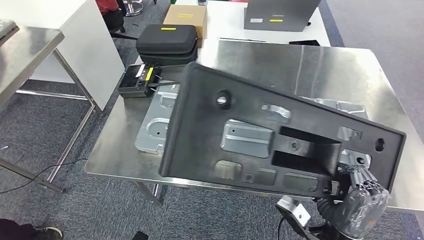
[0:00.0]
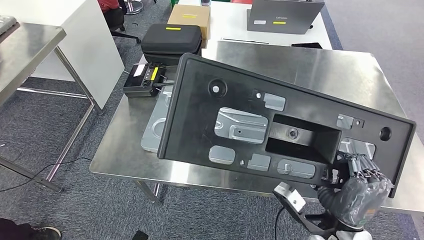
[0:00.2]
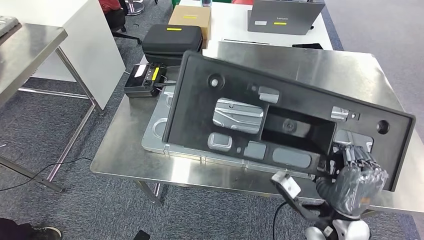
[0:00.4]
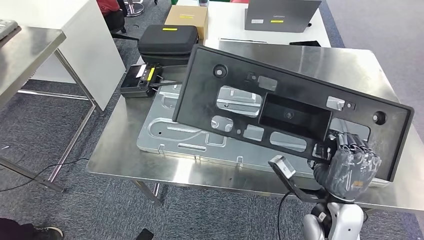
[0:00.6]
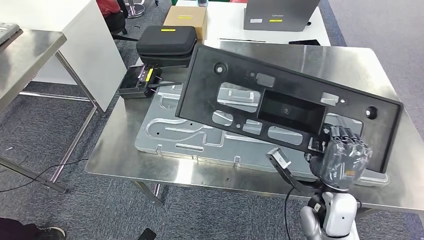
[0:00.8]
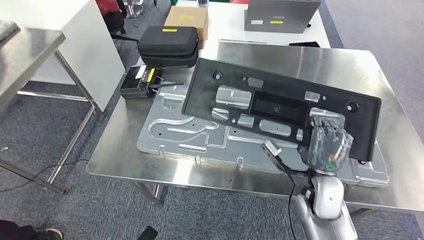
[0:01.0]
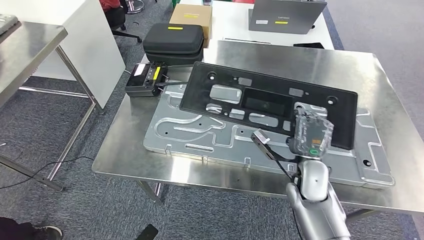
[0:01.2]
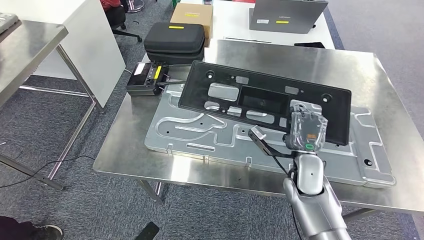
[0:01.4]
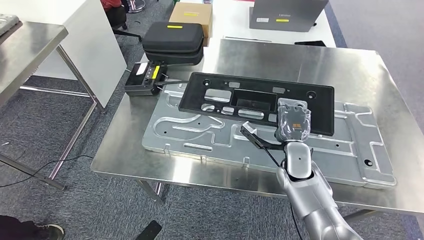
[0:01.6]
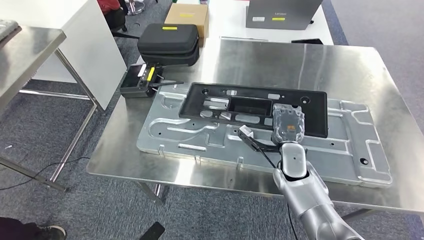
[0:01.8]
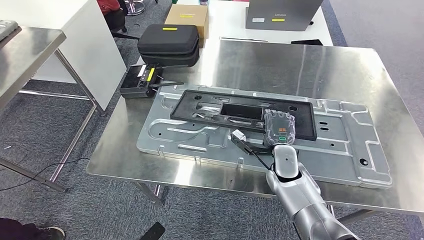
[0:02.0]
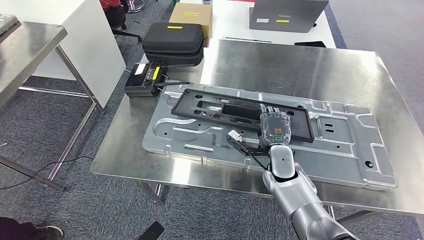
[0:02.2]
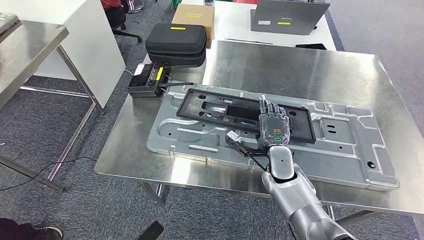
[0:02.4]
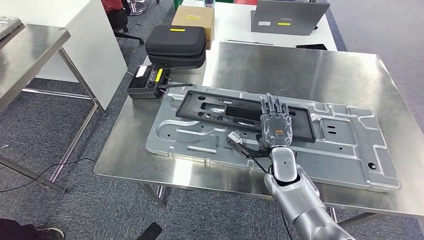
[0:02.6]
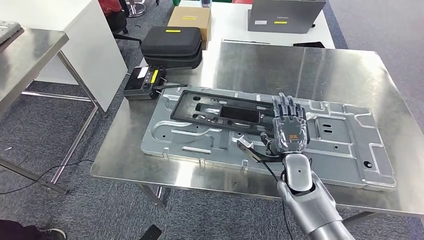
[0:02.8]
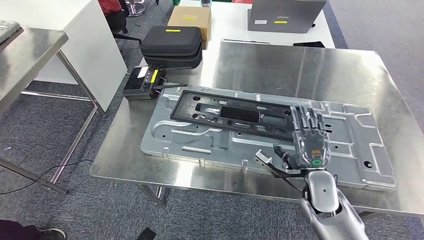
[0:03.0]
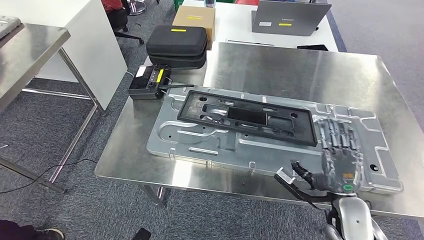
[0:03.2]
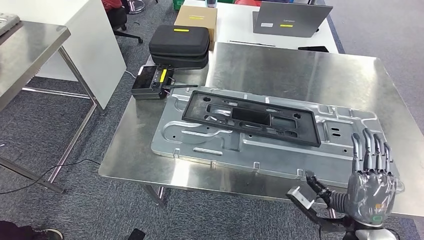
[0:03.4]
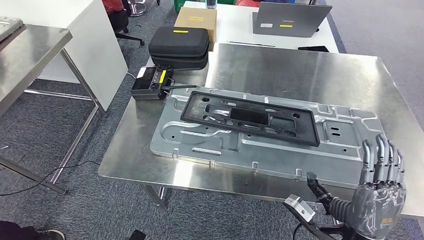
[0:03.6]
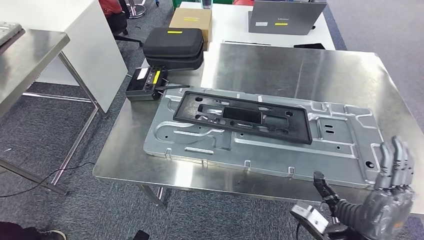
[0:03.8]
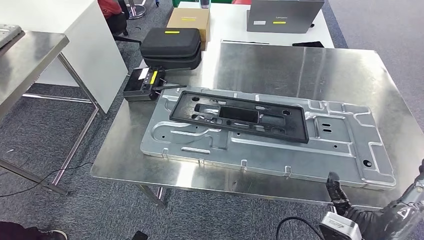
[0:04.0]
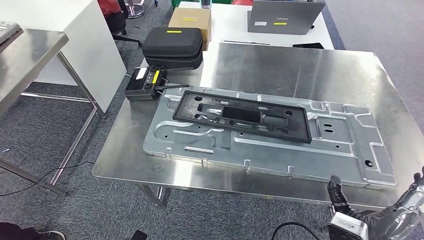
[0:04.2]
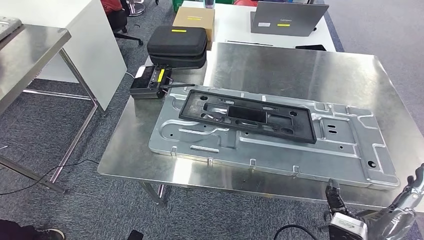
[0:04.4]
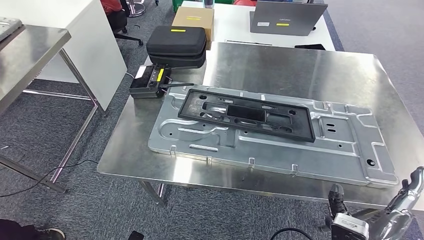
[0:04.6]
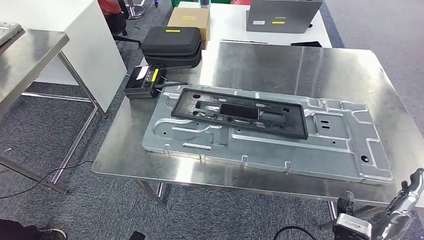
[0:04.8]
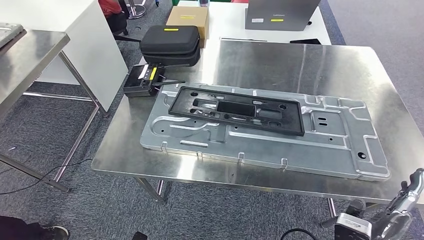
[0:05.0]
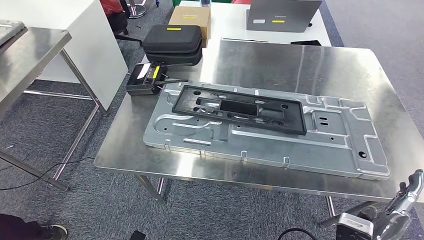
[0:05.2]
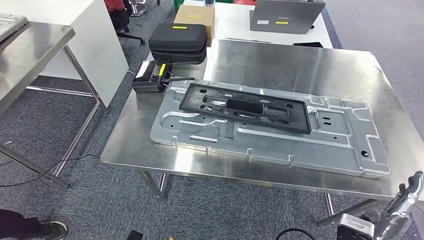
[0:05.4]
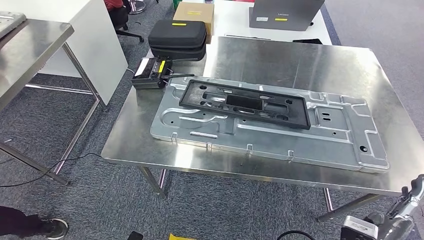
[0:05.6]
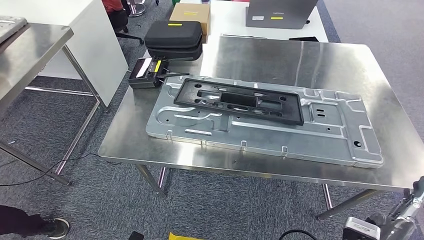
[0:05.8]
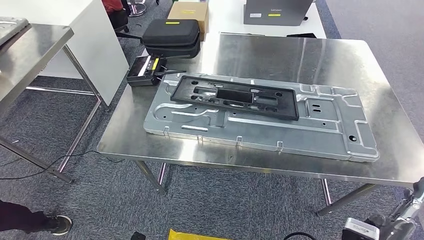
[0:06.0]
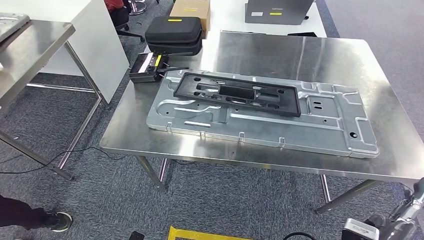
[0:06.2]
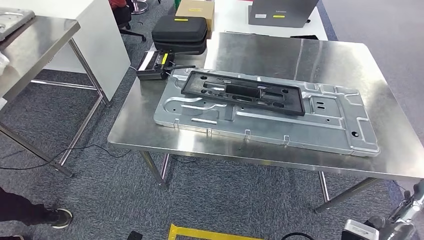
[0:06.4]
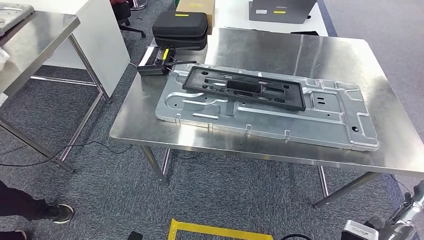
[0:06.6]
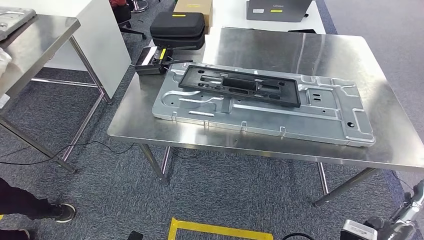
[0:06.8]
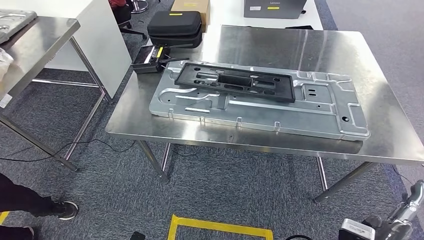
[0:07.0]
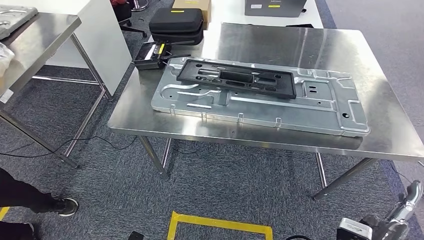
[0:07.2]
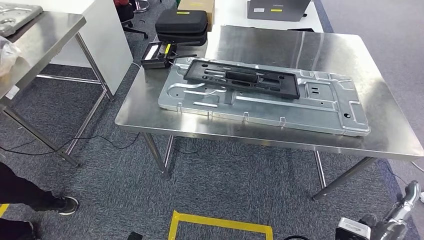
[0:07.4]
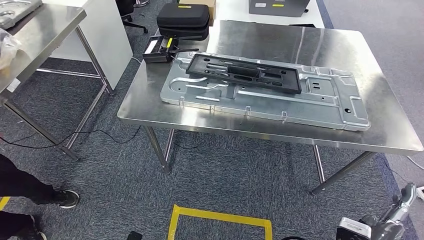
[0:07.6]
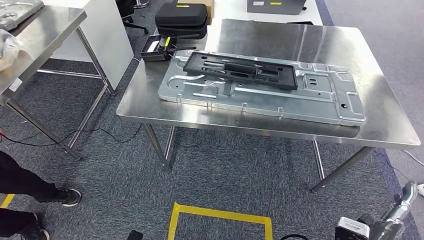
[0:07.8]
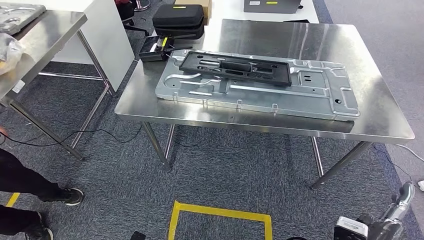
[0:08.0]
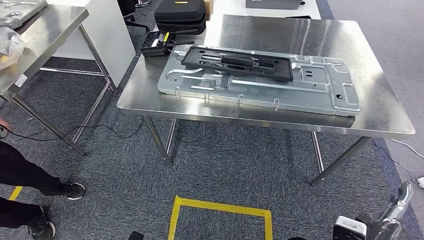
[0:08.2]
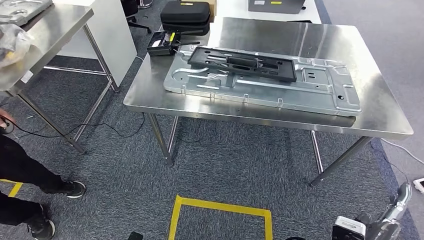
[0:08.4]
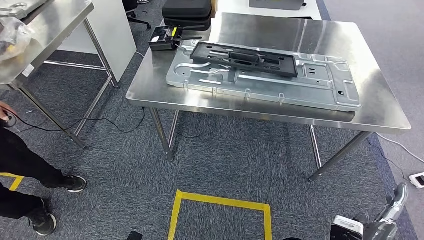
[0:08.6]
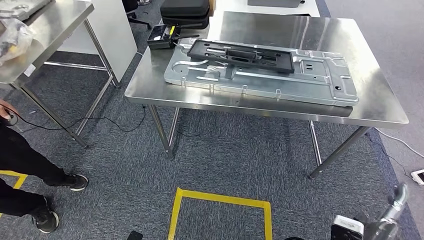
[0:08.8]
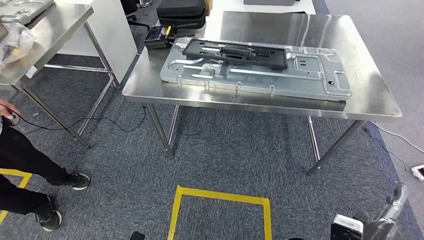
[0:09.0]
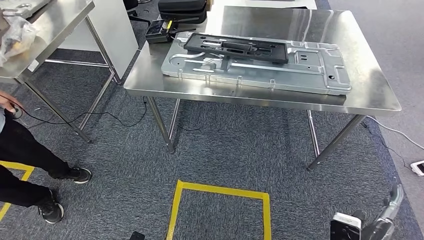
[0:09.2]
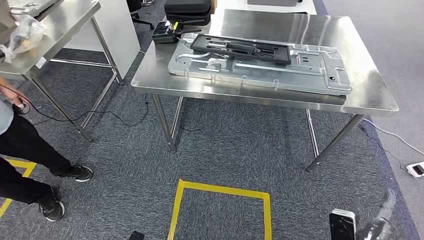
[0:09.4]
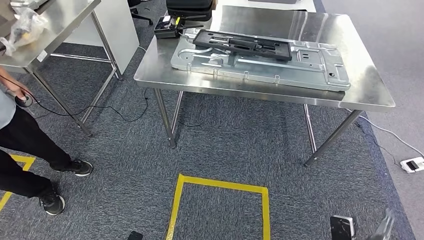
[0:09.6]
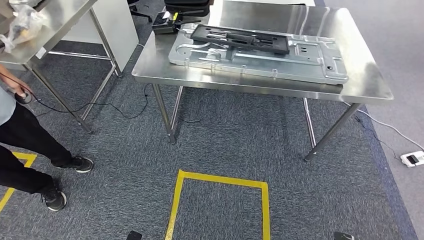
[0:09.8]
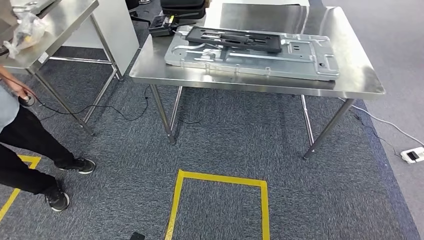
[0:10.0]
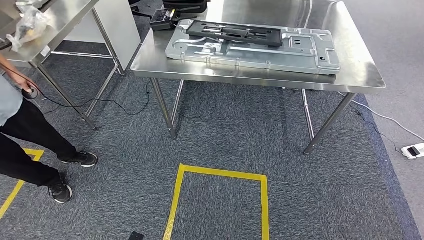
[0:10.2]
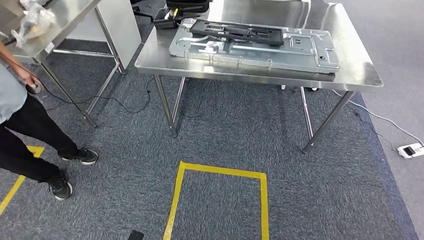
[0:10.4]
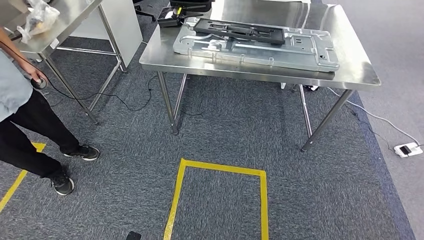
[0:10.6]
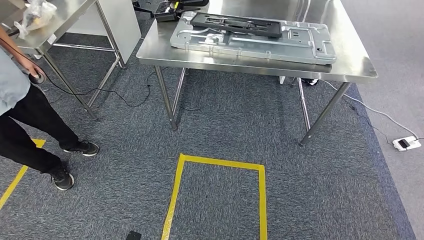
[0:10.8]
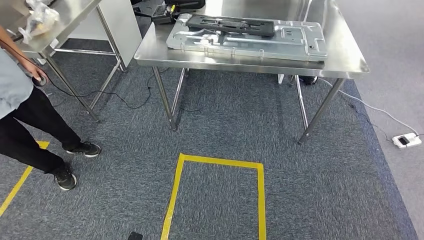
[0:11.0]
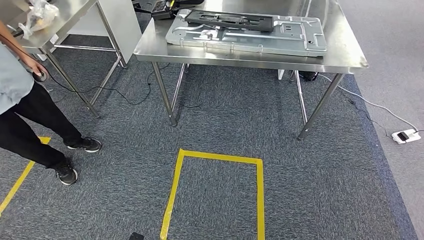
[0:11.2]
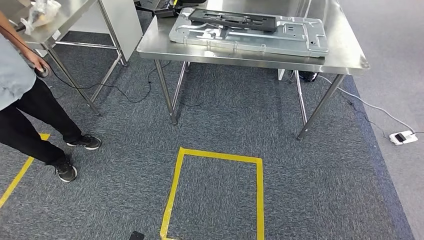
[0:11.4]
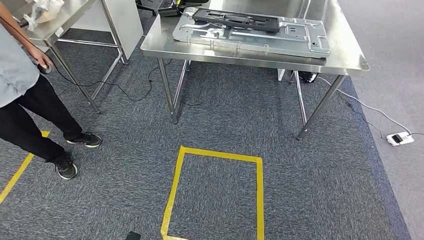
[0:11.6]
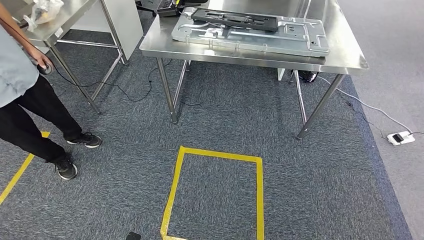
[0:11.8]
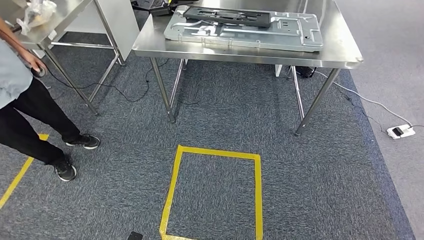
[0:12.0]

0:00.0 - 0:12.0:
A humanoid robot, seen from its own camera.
Step, 0:00.0 - 0:04.4: Insert the large material into the corresponding slot on the workbench.

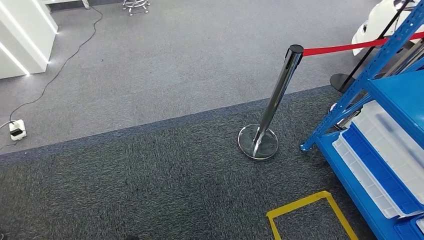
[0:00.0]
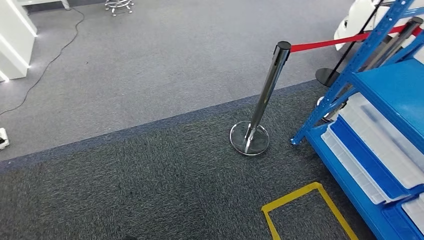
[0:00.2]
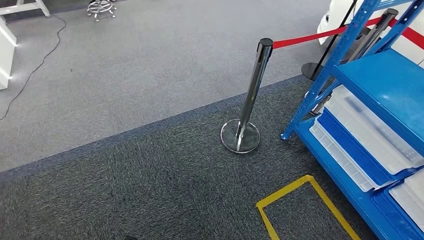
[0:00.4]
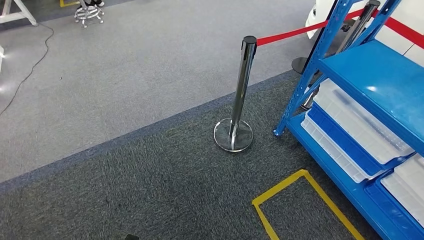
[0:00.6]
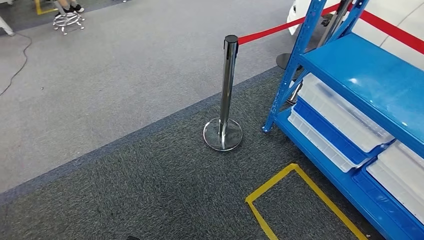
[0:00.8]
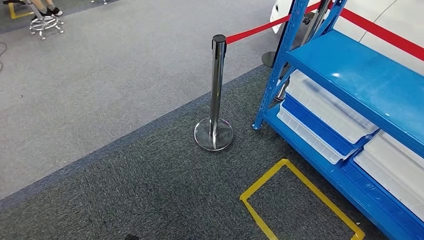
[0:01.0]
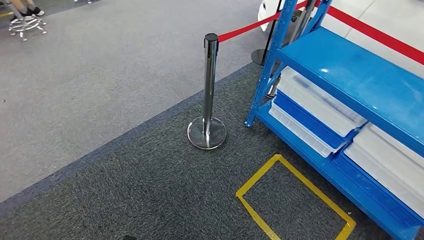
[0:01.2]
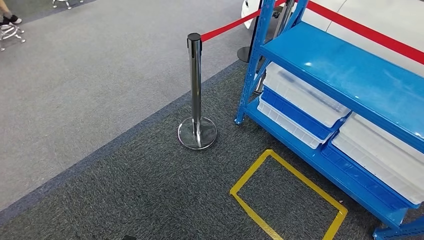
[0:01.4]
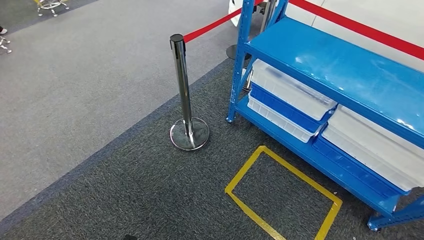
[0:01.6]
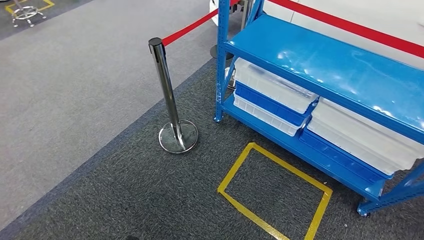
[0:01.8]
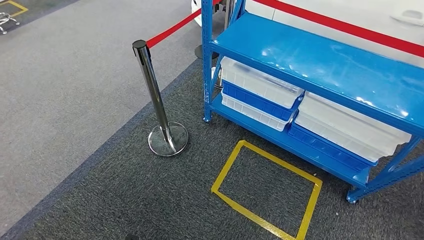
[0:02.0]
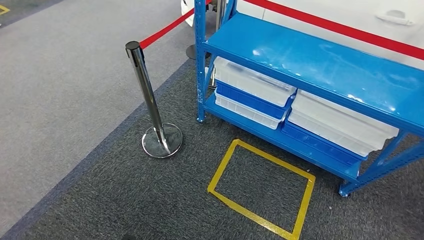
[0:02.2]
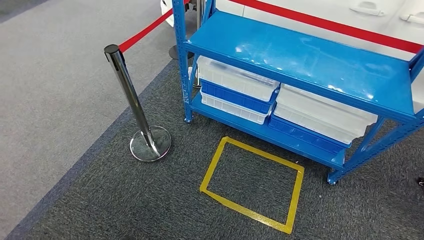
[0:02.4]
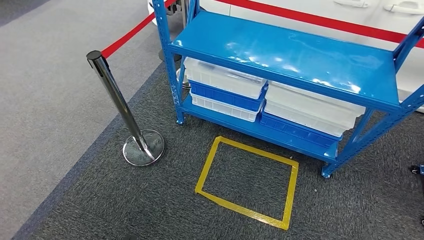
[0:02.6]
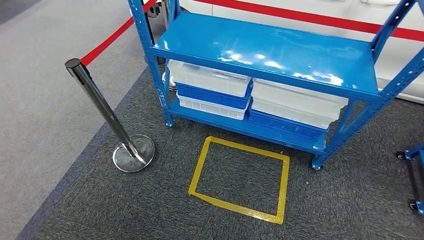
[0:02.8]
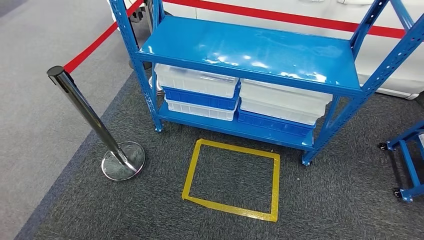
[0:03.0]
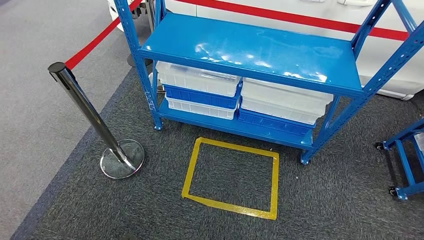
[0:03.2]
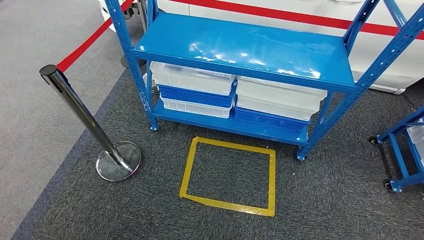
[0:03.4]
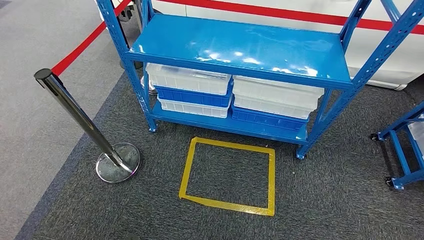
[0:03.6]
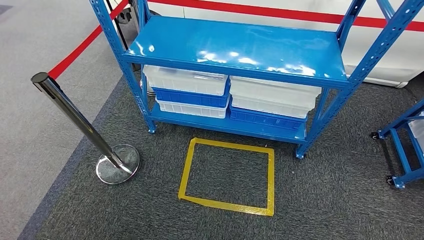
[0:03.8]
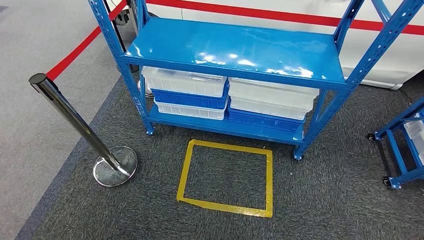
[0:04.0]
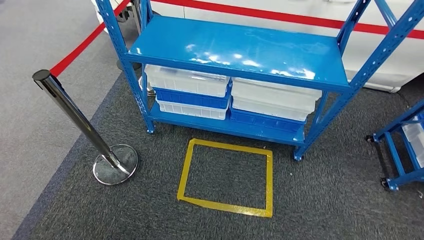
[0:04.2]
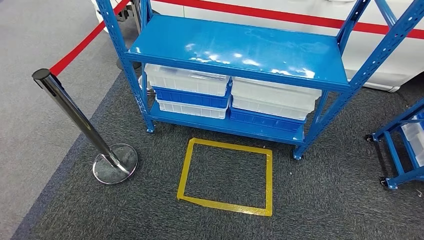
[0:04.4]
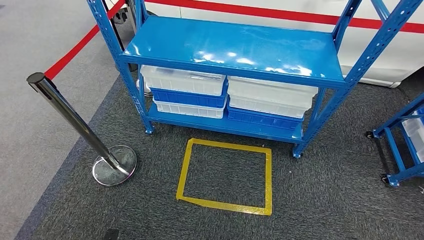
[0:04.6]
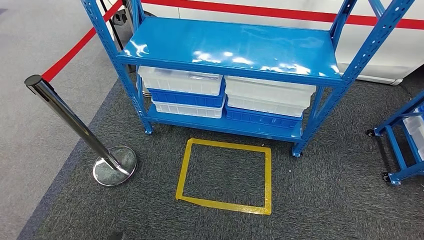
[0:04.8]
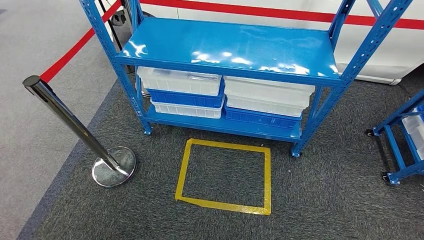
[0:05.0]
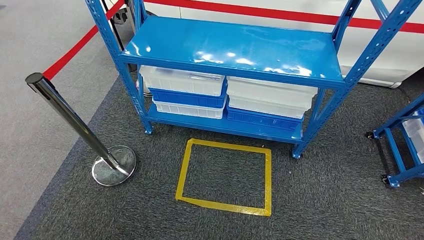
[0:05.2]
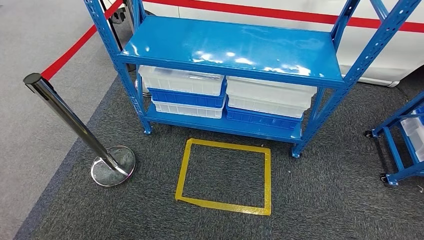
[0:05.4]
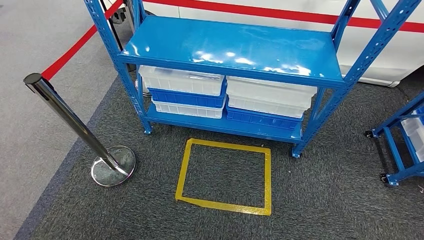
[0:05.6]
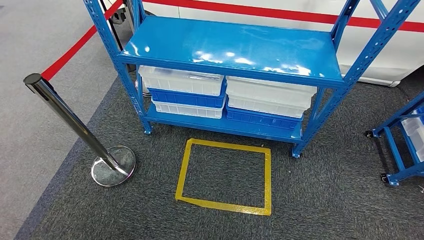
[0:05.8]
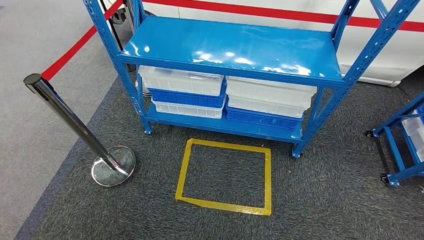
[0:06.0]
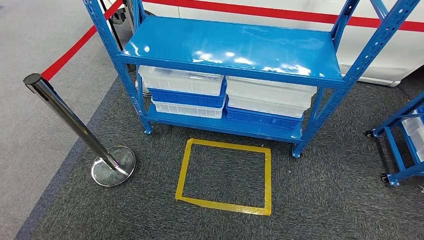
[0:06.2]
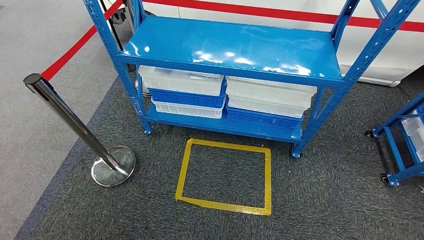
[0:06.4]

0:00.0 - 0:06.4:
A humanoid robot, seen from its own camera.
Step, 0:00.0 - 0:06.4: Return to the initial position at the shelf.
